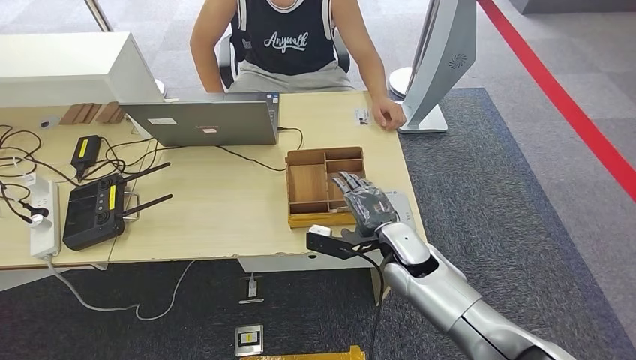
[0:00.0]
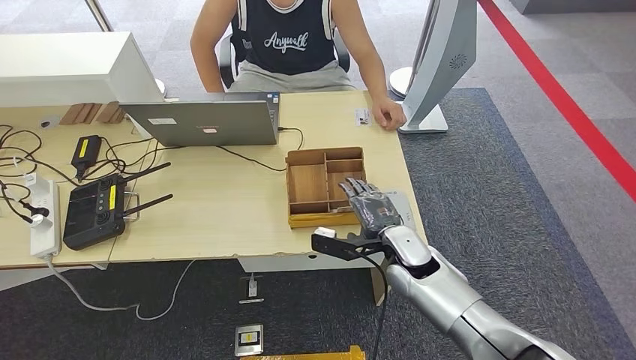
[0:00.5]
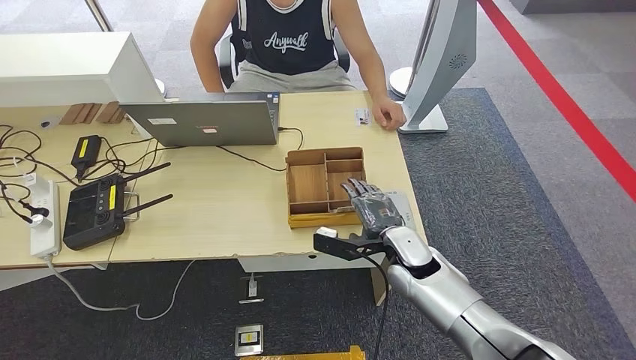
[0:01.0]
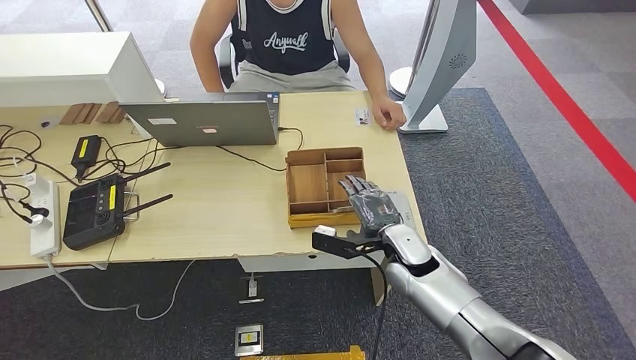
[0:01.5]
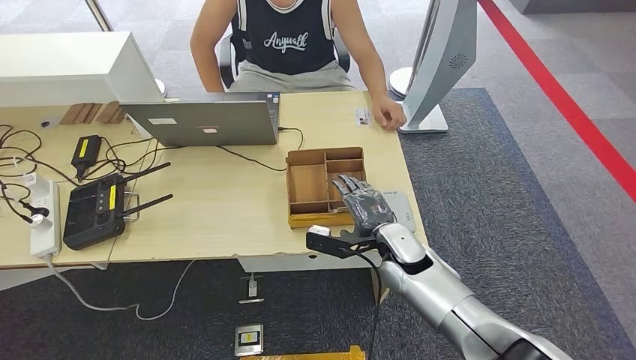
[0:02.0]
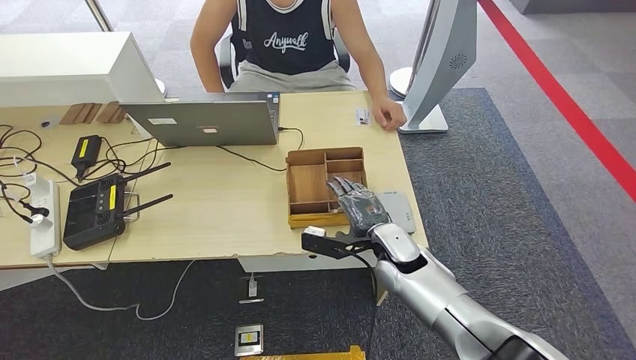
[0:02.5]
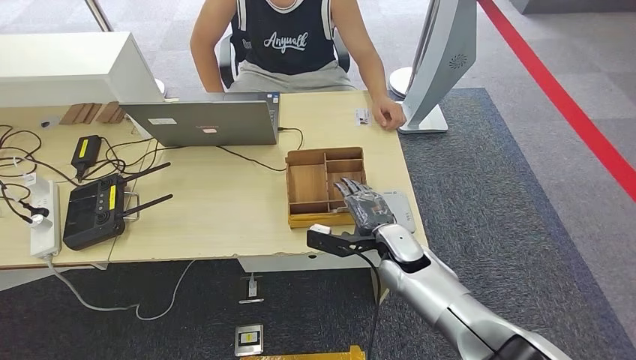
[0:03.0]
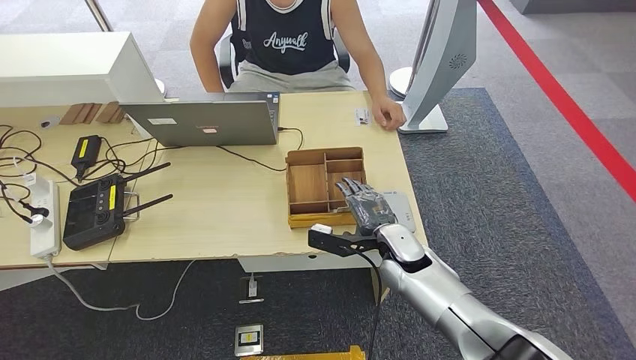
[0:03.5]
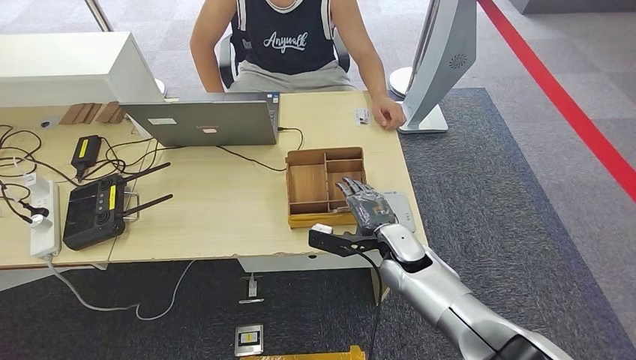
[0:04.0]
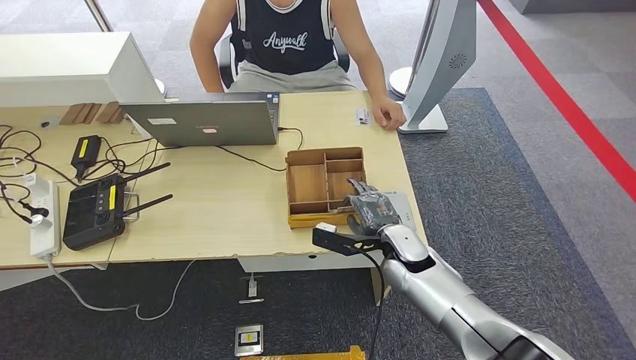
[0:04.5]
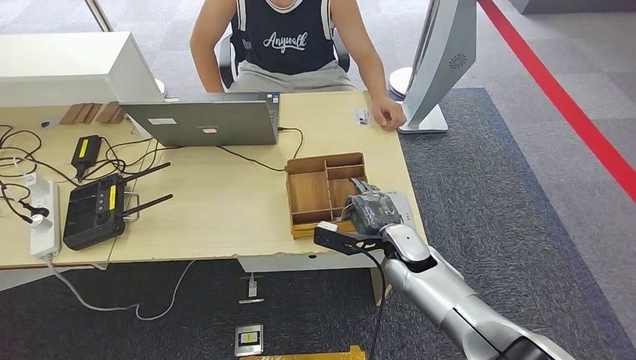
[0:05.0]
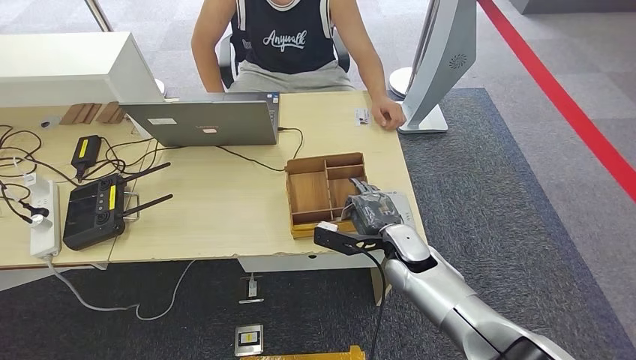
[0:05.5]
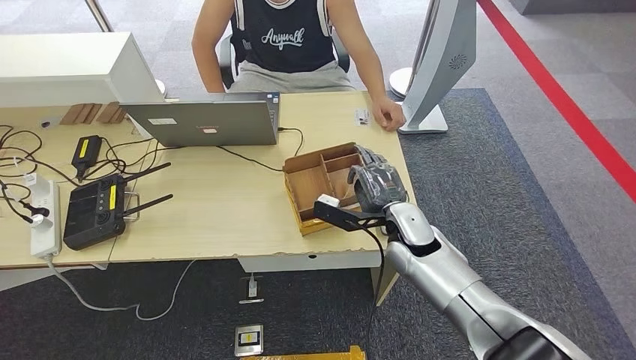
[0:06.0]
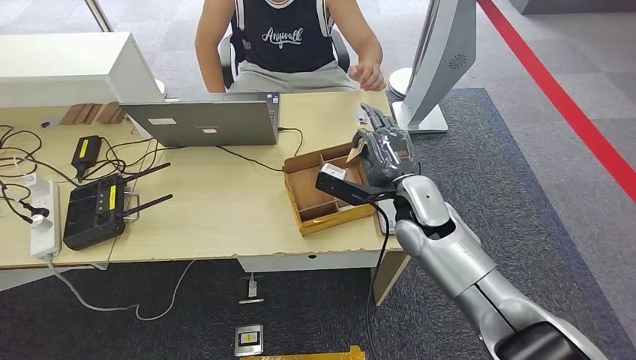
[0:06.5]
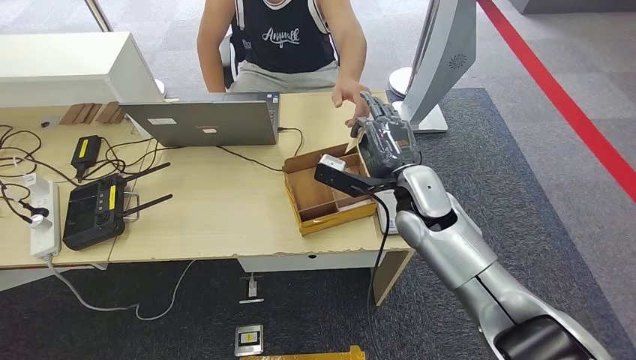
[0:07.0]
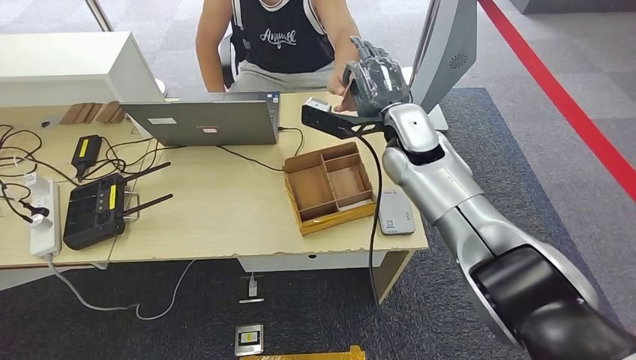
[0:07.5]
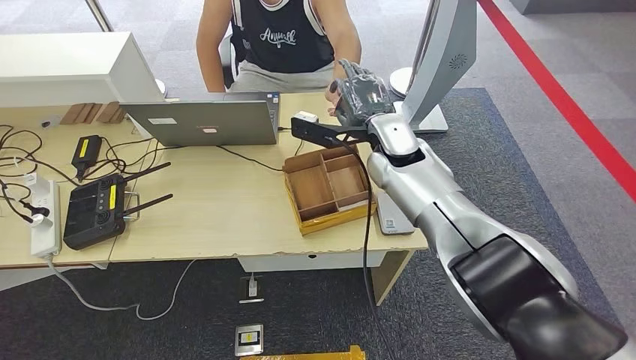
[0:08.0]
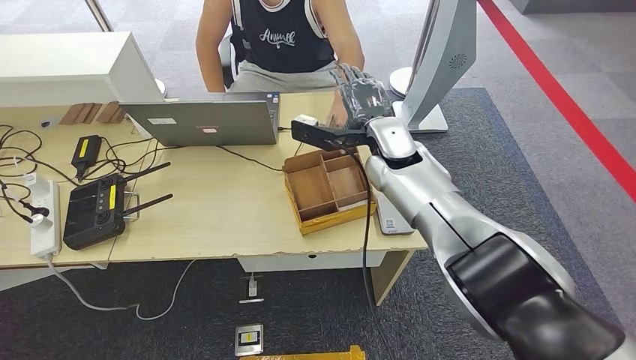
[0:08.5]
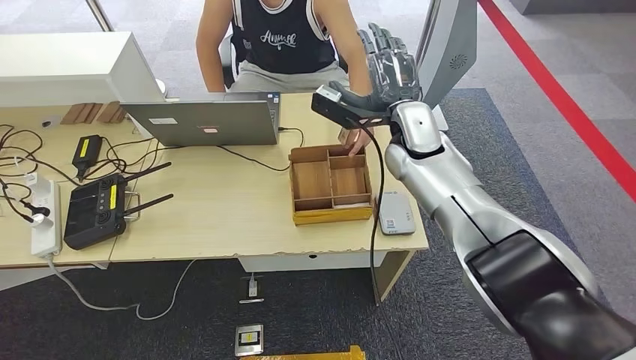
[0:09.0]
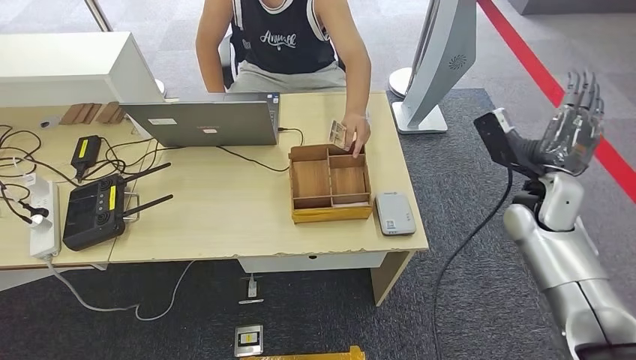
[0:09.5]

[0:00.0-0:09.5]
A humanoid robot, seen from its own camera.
Step, 0:00.0 to 0:06.5: Pick up the room key from the key card box.
Step, 0:07.0 to 0:09.5: Hand the room key to the person.
0:00.0 to 0:02.0: The hands move only a little.
0:02.0 to 0:04.0: The two hands keep their place.
0:04.0 to 0:05.5: The two hands keep their place.
0:05.5 to 0:07.5: The right hand is displaced upward and forward by approximately 25 cm.
0:07.5 to 0:09.5: The right hand is displaced to the right and backward by roughly 25 cm.
